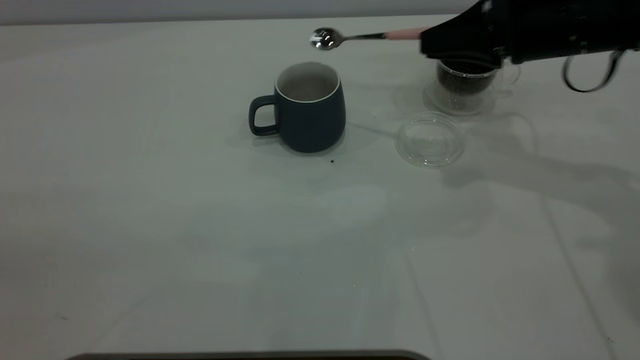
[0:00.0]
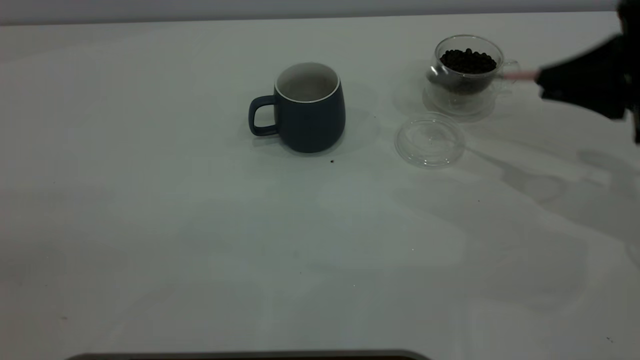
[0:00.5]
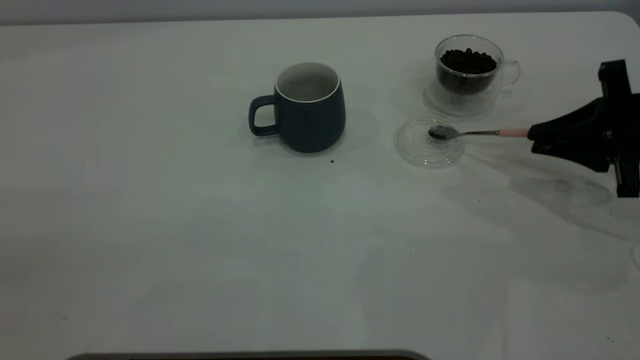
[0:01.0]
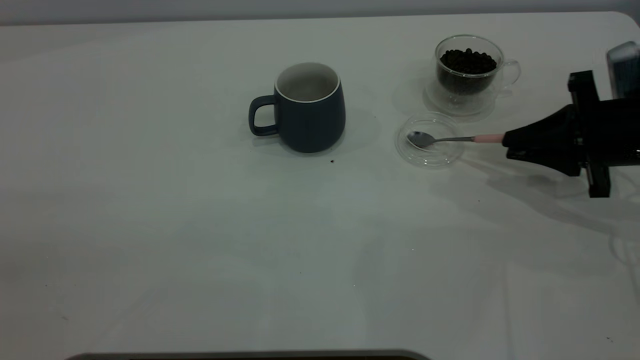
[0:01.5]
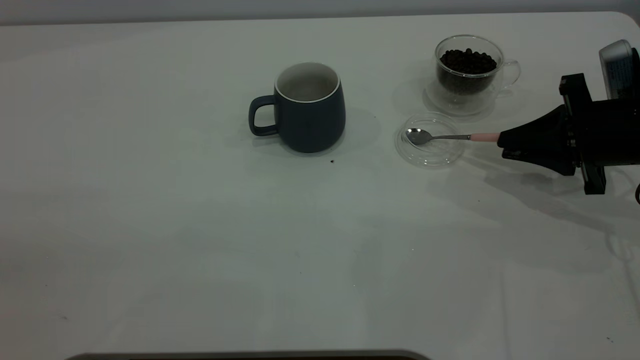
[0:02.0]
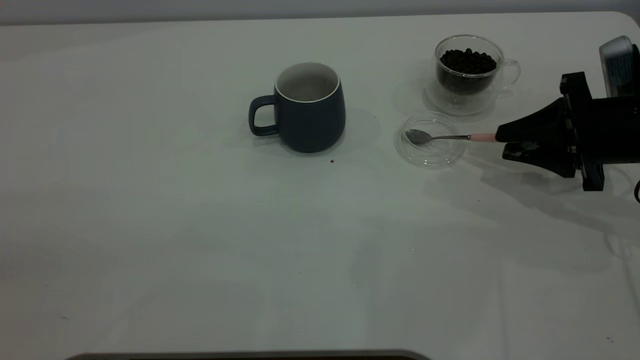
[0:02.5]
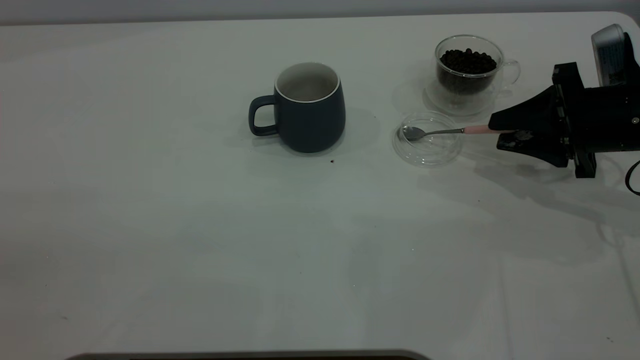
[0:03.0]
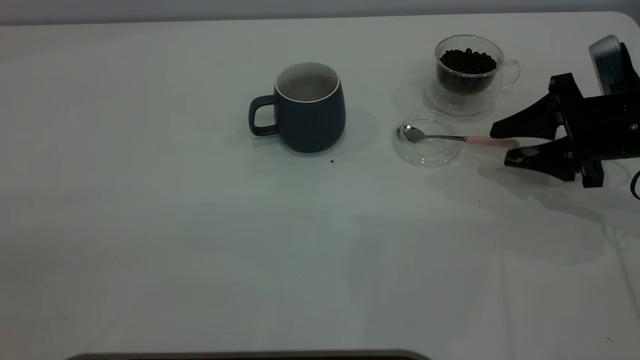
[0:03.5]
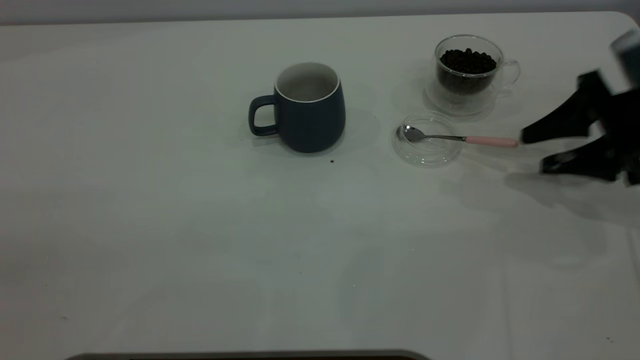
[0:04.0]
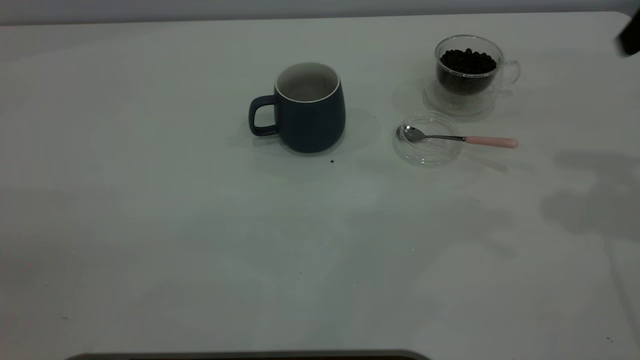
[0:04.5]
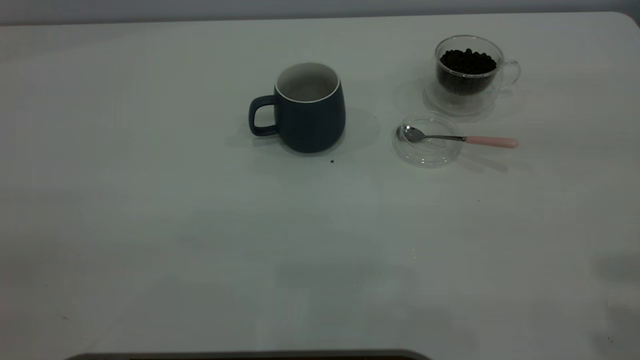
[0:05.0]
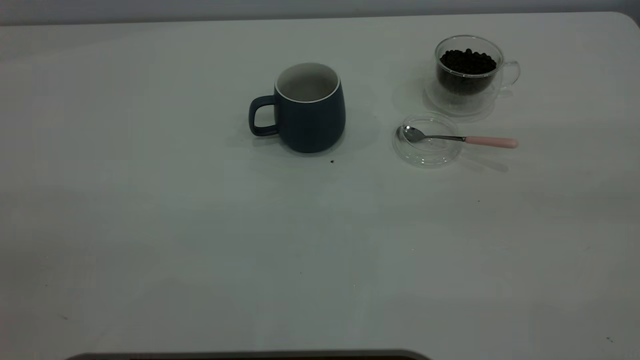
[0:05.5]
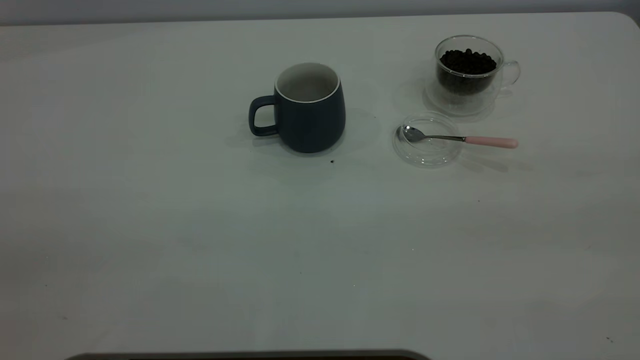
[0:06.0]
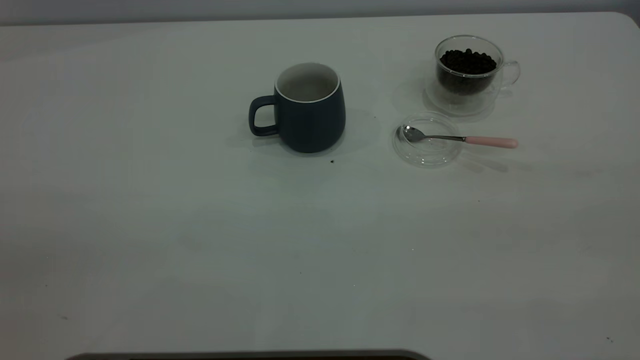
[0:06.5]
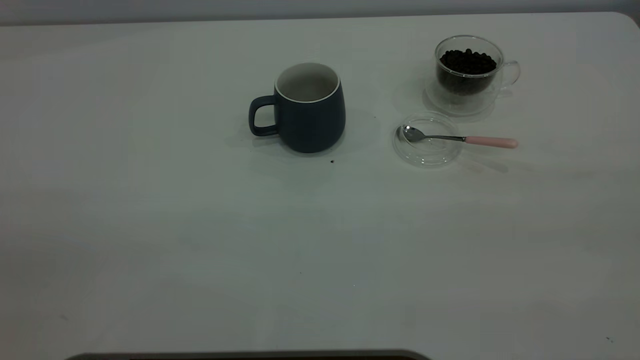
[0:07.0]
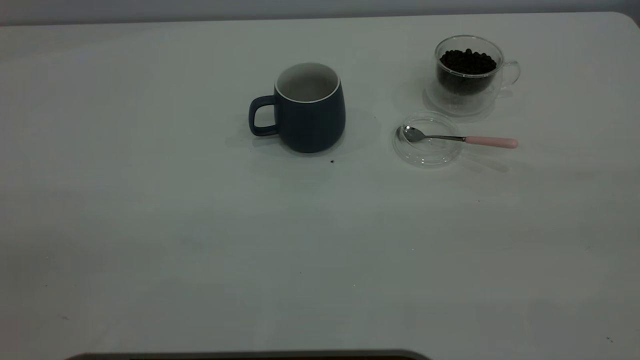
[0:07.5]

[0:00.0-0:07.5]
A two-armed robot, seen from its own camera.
Task of the whole recording: the left gripper place the grey cup in the center of the table, the right gripper take the pink spoon from the cup lid and scoop out the coffee beans from the coffee cup and put them into the grey cup, the right gripper put the spoon back into the cup lid.
Step, 0:00.5 to 0:04.0: Place the spoon back in its original place.
0:00.0 to 0:02.0: The right gripper travels downward, to the right and backward by some 15 cm.
0:02.0 to 0:04.0: The right gripper opens up.
0:04.0 to 0:05.5: The right gripper heads backward and upward, covering some 40 cm.
